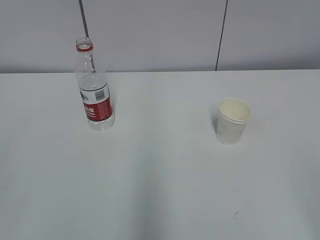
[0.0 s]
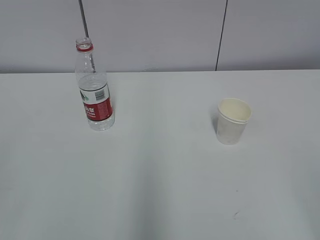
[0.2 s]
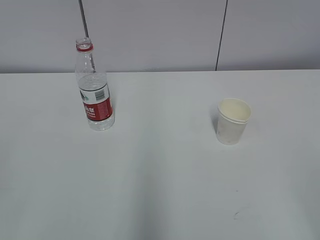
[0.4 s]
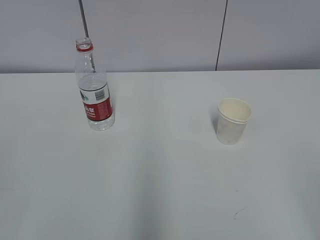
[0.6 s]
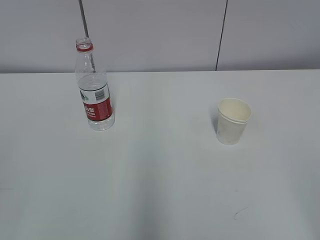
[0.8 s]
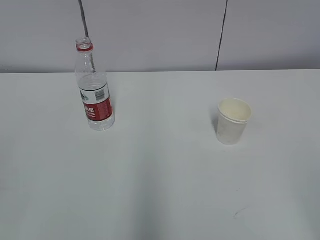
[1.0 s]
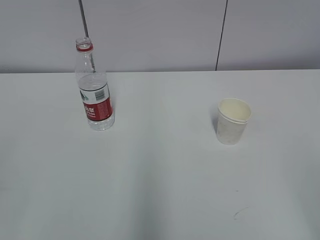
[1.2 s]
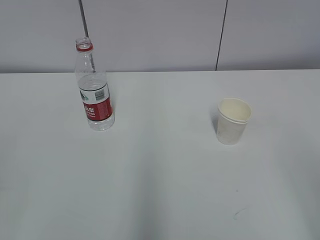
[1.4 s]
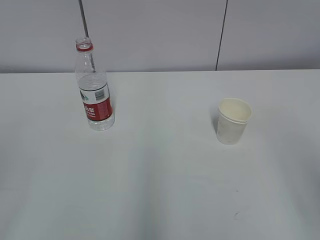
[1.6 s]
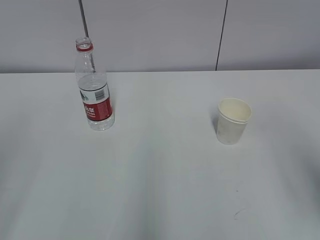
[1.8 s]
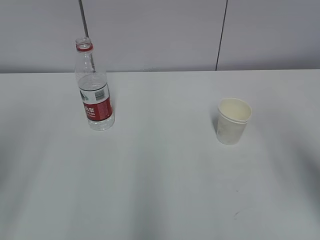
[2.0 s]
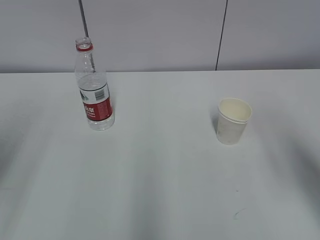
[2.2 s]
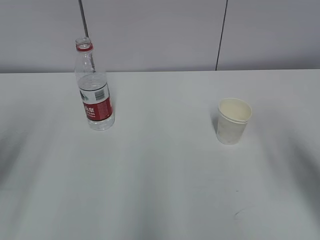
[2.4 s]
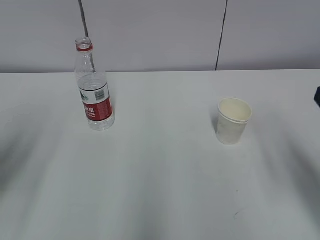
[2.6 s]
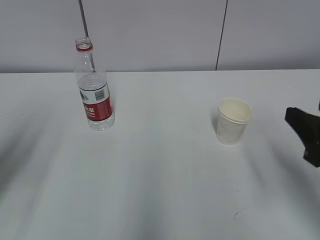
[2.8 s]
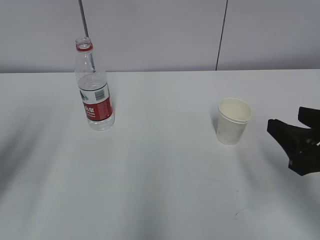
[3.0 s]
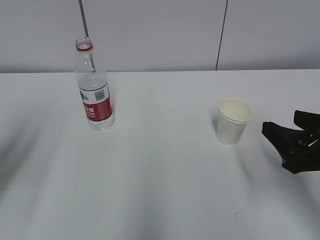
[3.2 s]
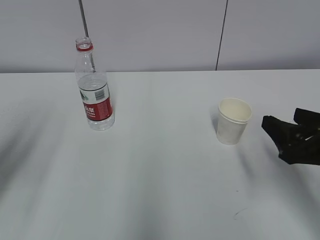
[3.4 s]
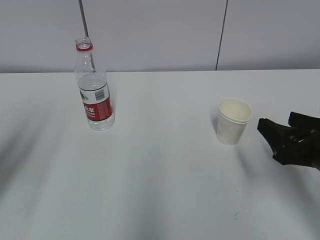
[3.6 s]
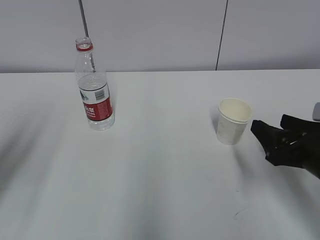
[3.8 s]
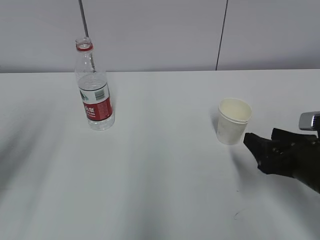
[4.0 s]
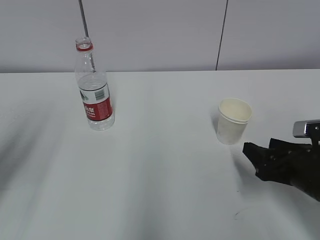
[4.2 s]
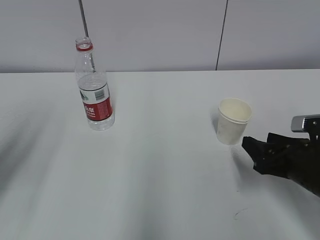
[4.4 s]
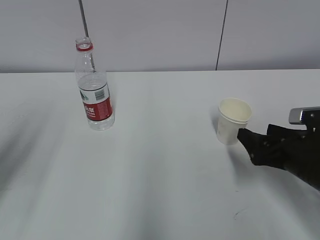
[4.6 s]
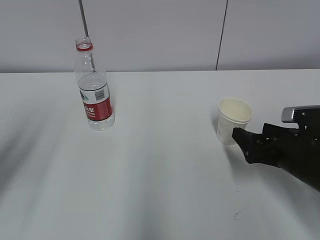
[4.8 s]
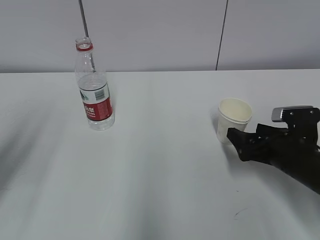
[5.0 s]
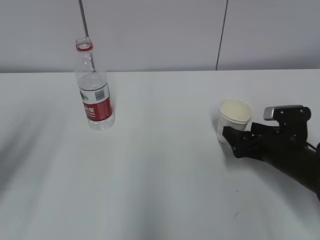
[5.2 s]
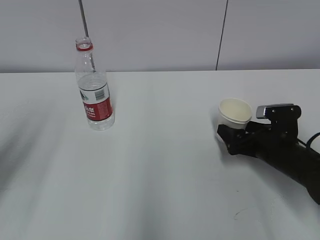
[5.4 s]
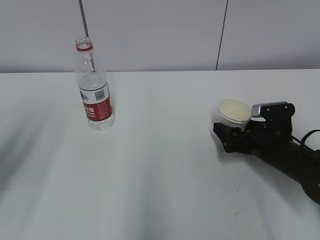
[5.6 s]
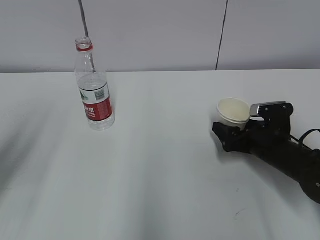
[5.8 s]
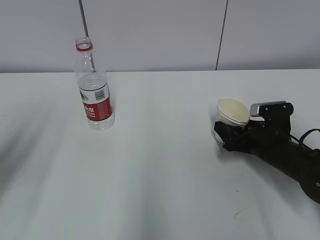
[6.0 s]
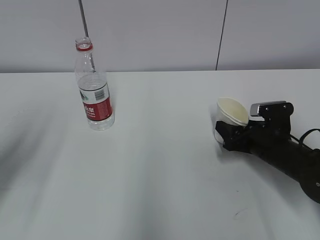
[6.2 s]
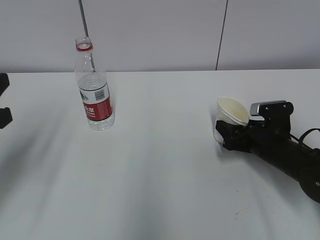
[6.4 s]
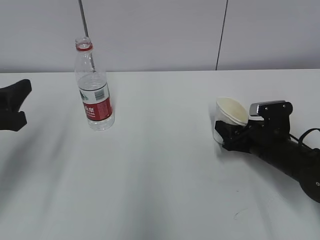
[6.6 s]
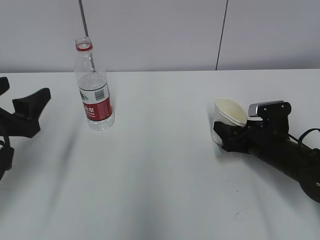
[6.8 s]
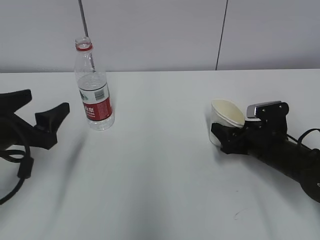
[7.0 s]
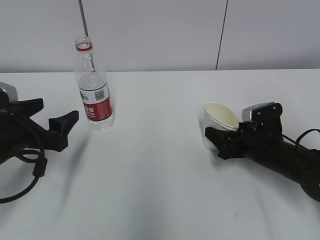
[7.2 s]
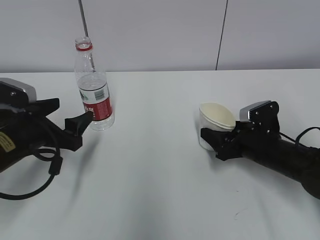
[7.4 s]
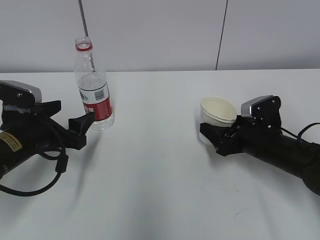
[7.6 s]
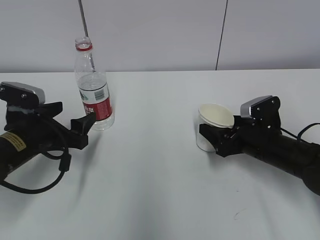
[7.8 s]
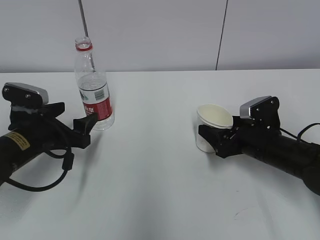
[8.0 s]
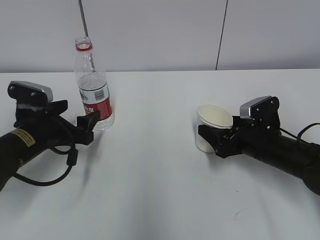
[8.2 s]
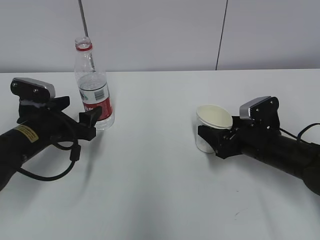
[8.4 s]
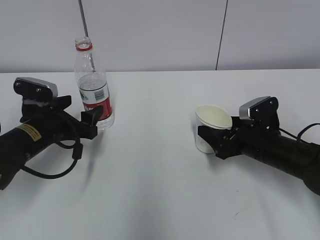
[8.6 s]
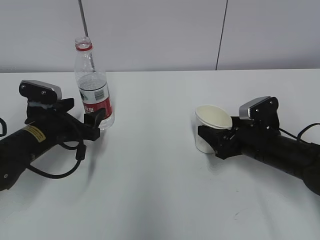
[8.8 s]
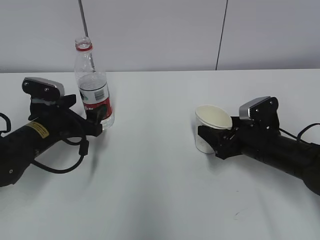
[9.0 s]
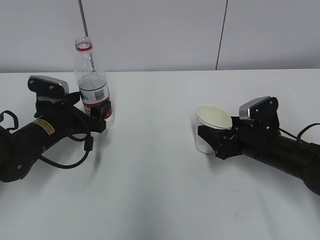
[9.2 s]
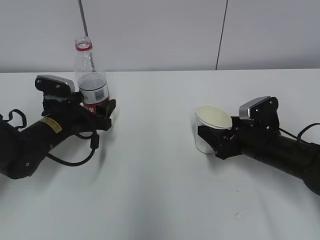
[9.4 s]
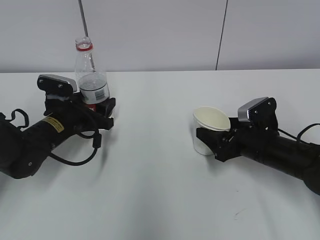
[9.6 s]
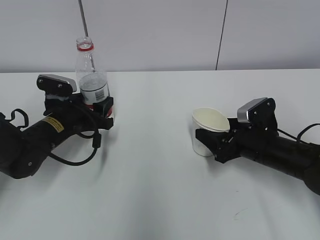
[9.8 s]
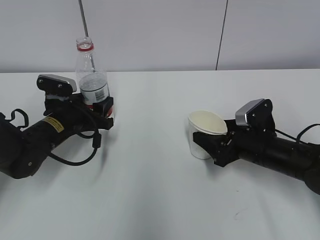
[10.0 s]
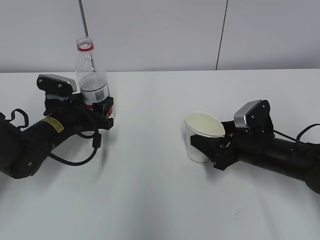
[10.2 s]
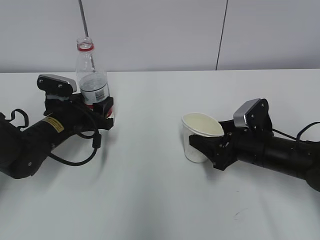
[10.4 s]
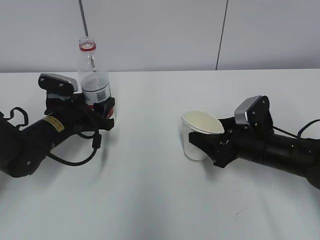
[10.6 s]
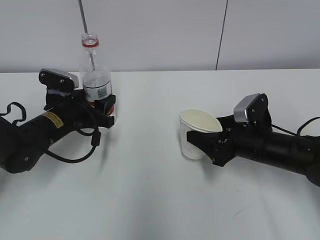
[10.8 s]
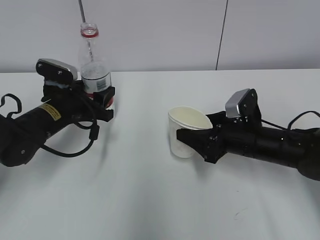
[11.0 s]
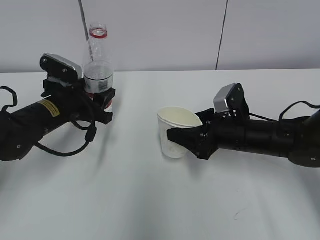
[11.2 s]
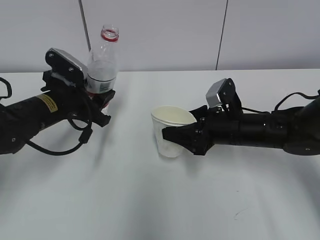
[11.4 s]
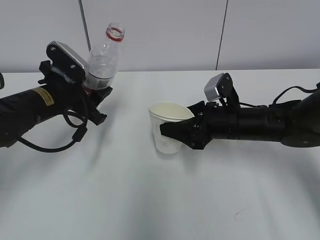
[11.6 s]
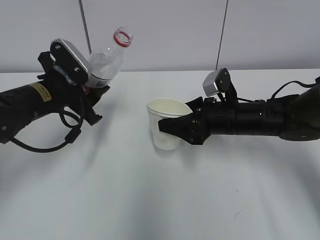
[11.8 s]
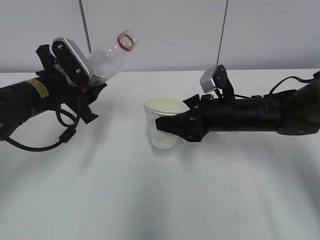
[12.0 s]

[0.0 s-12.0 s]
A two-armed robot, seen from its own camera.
Step, 0.0 to 5.2 s: Grab the paper cup with the right hand.
Step, 5.4 to 8.6 s: Grab the water bottle with the left hand.
Step, 8.8 to 12.0 s: Lift the paper cup with the right hand.
1.6 to 3.0 s: The left gripper goes approximately 15 cm forward, while the right gripper moves forward and downward, roughly 15 cm.
3.0 to 4.4 s: The right gripper heads downward and forward, covering about 10 cm.
4.4 to 6.0 s: The right gripper shifts roughly 10 cm forward, and opens, then closes once more.
6.0 to 7.6 s: The left gripper goes approximately 15 cm downward, forward and to the right, and opens up, while the right gripper closes, then reopens.
7.6 to 9.0 s: The left gripper moves forward, roughly 5 cm.
9.0 to 10.4 s: The left gripper closes.
10.4 to 12.0 s: The left gripper travels upward by about 10 cm; the right gripper heads to the left and upward, covering some 5 cm.

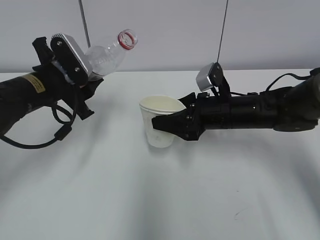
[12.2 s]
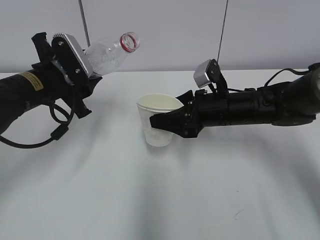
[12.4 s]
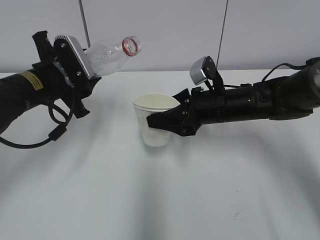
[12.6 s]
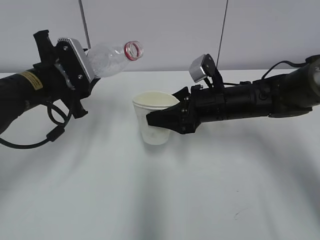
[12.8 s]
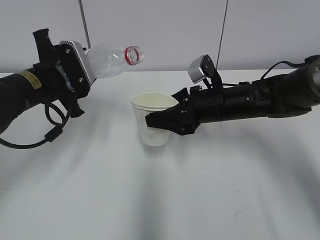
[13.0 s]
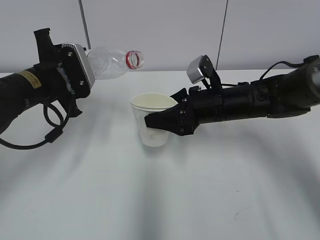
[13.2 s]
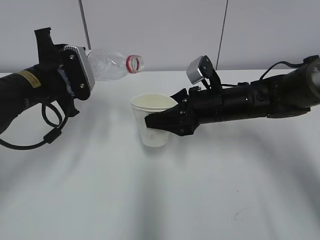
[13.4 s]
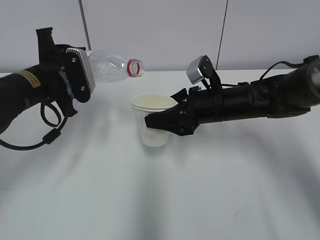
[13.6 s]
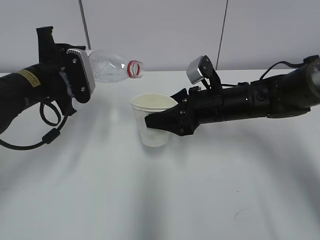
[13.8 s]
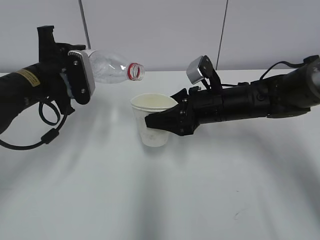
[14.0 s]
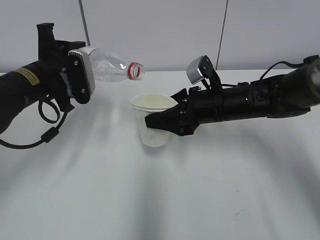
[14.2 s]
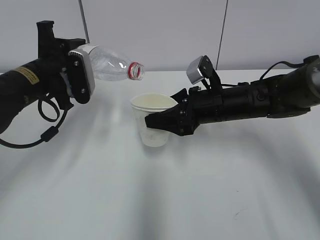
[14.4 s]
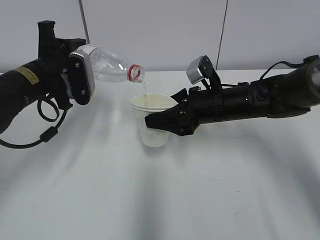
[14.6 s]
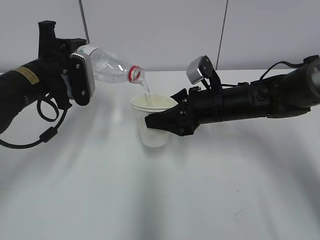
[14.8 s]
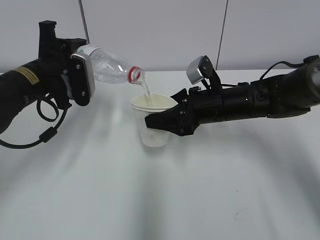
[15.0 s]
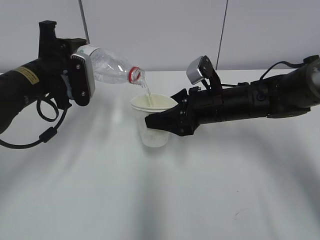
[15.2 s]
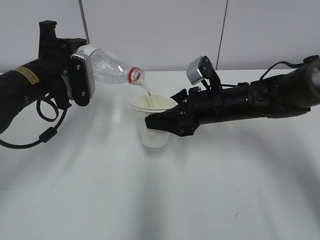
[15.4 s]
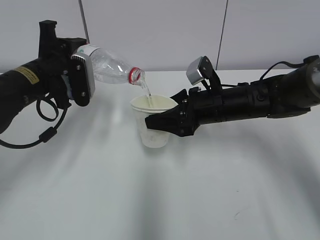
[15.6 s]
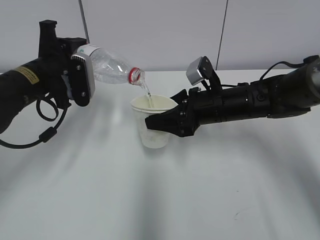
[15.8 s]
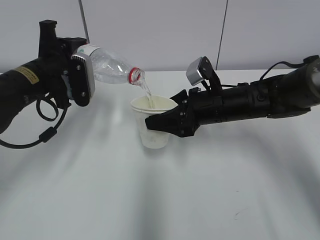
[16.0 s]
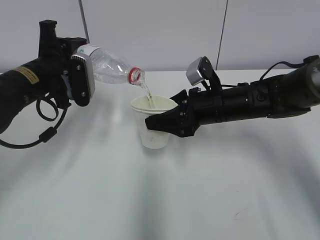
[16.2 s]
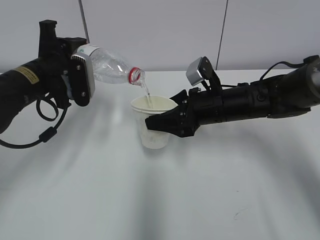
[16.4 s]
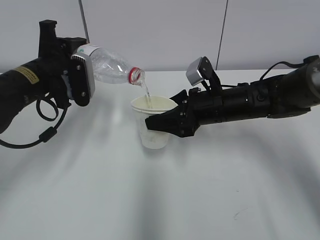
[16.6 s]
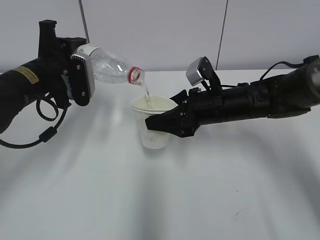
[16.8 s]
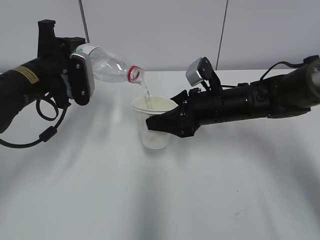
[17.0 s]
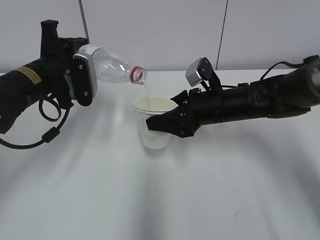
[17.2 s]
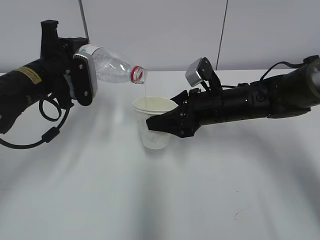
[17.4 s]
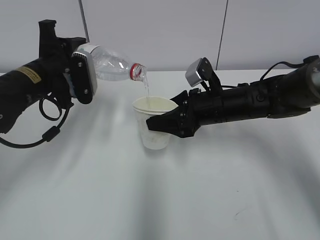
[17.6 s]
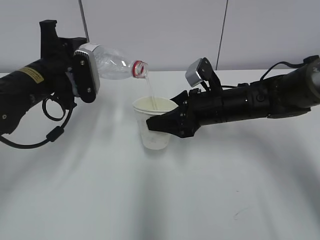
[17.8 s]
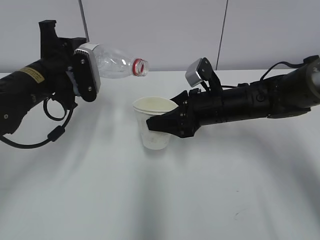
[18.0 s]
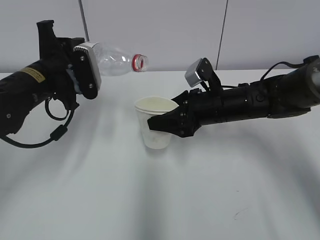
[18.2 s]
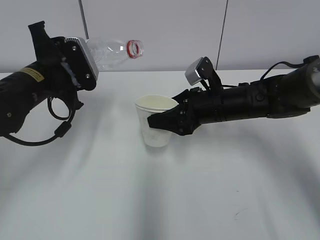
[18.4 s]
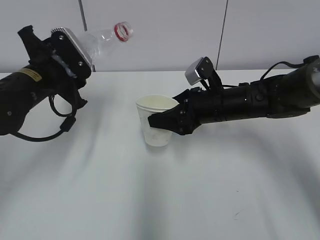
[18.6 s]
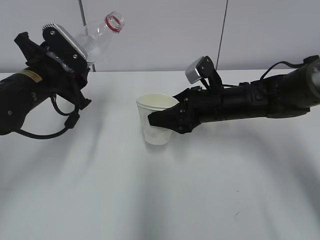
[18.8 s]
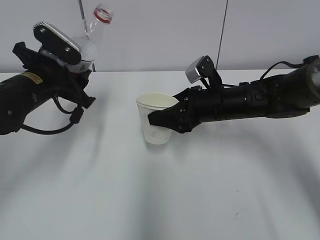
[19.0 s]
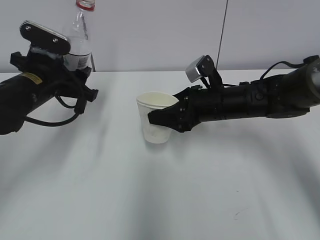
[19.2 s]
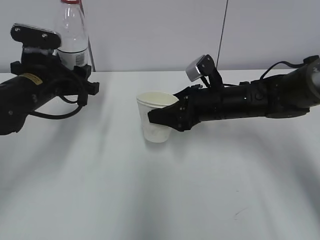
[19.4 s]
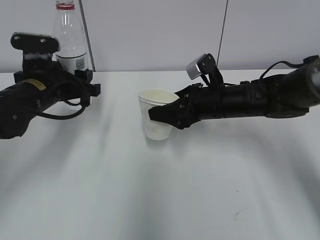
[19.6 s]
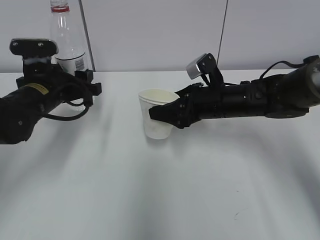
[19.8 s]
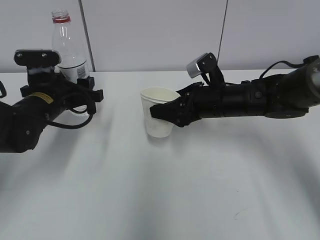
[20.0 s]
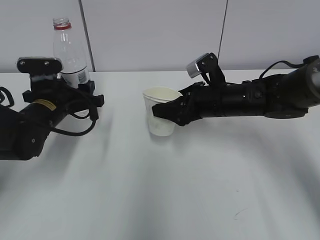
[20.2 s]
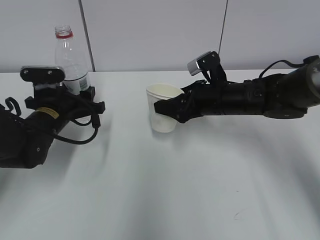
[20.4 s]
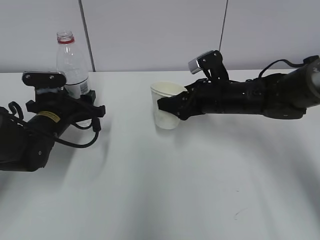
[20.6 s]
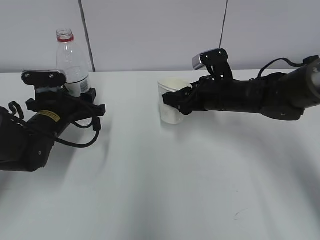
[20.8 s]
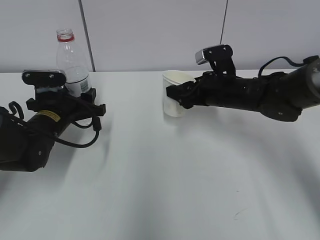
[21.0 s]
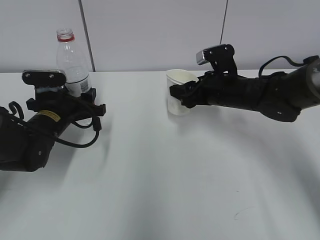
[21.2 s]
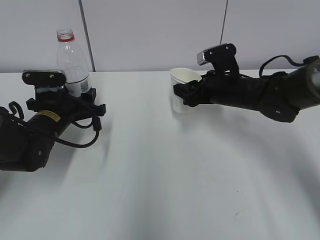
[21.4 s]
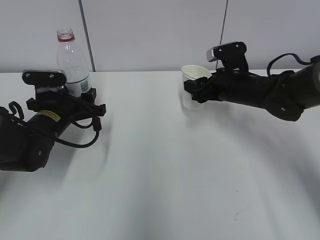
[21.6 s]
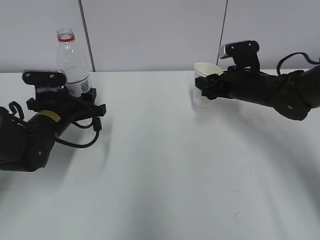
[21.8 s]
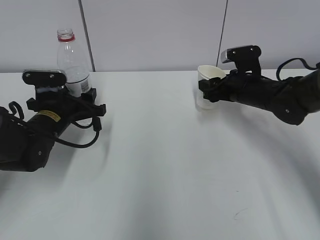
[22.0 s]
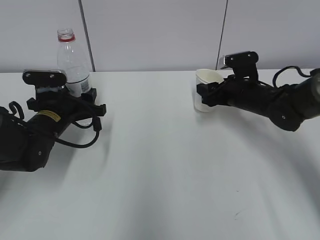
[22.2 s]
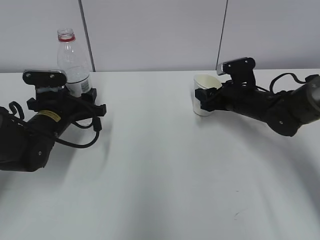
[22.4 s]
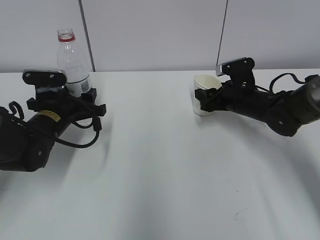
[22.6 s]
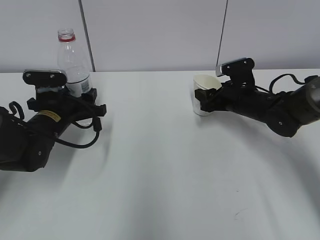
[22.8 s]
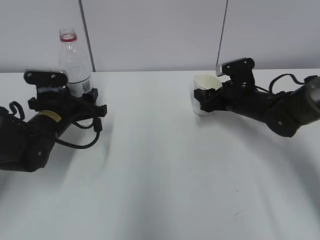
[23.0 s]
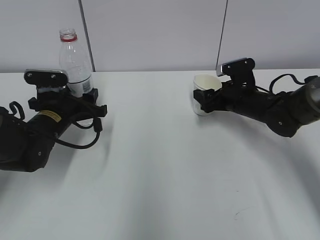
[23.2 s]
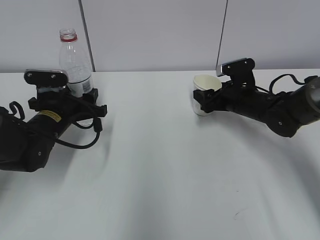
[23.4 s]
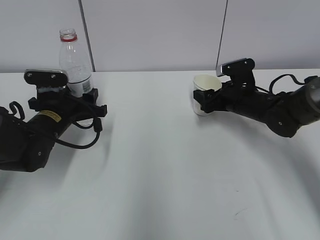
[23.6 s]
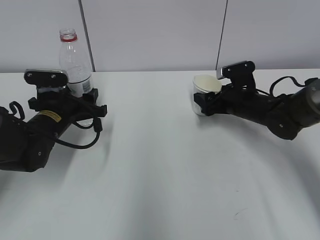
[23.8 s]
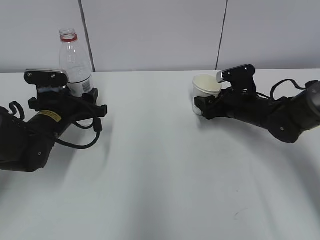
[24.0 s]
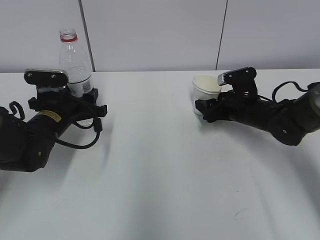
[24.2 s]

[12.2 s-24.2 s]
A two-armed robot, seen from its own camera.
Step, 12.2 to 14.8 s: Fill water with the right hand.
Step, 12.2 to 14.8 s: Pour water with the left hand.
Step, 16.2 to 19.6 s: Place the paper cup with the right hand.
Step, 19.8 to 22.2 s: Place the water bottle with the left hand.
13.8 to 15.2 s: The grippers stay close to where they were, moving slightly.
15.2 to 16.6 s: Both grippers stay put.
16.6 to 18.2 s: The grippers stay close to where they were, moving slightly.
19.8 to 21.2 s: The left gripper moves downward, about 5 cm.
21.2 to 22.6 s: The right gripper shifts by roughly 5 cm.
22.6 to 24.2 s: The right gripper opens up.
